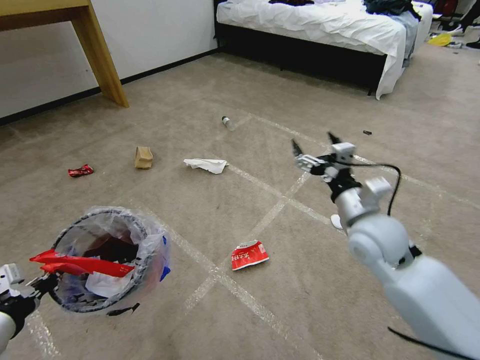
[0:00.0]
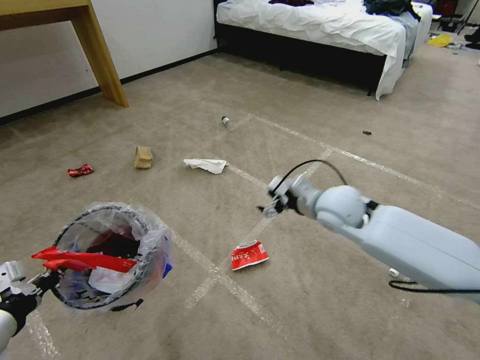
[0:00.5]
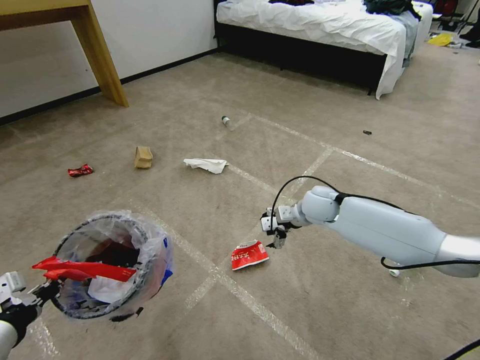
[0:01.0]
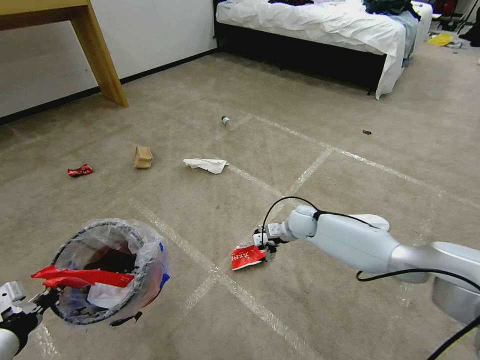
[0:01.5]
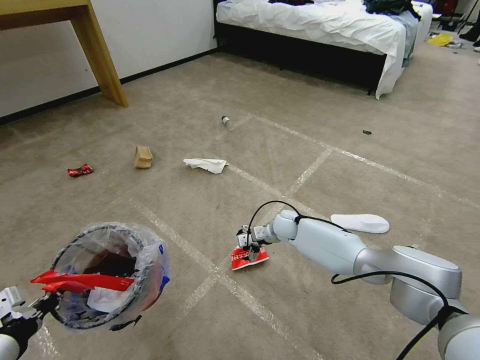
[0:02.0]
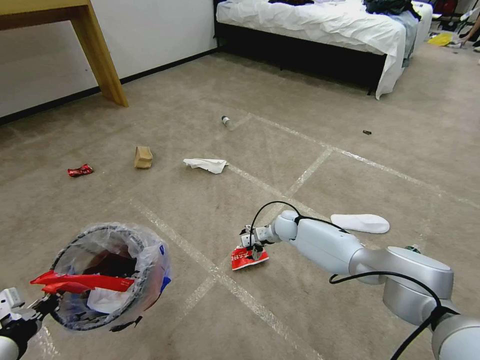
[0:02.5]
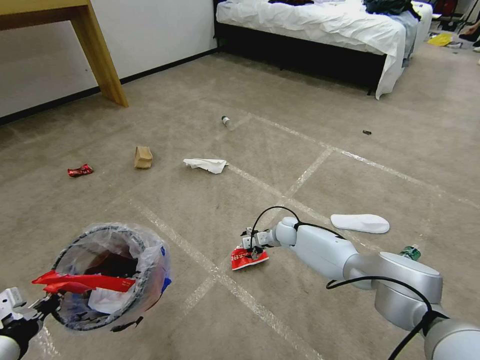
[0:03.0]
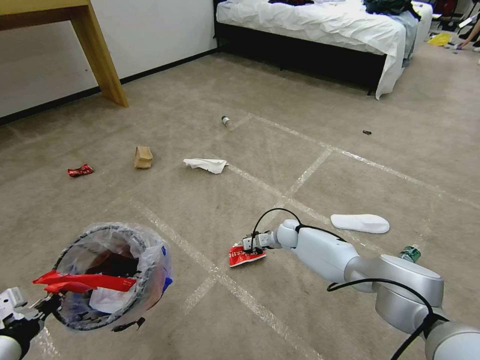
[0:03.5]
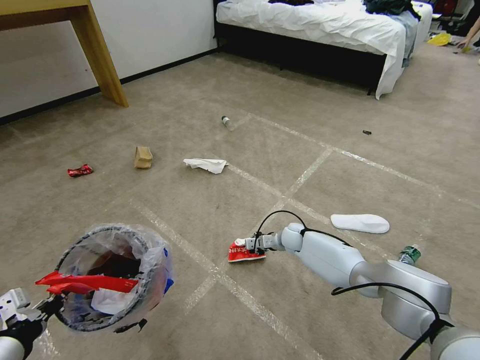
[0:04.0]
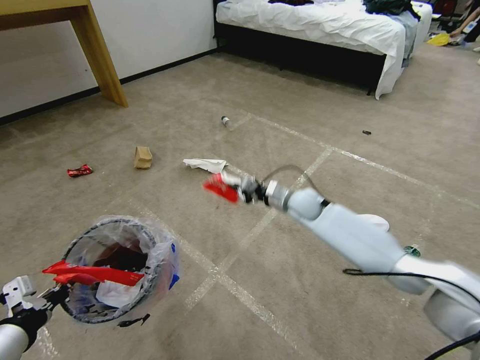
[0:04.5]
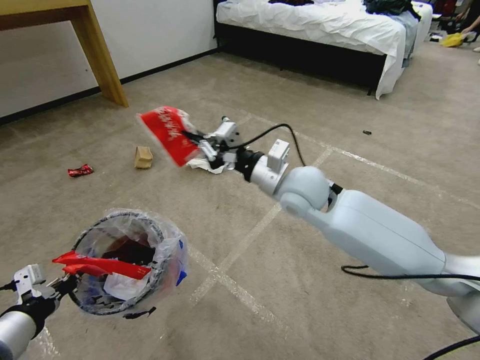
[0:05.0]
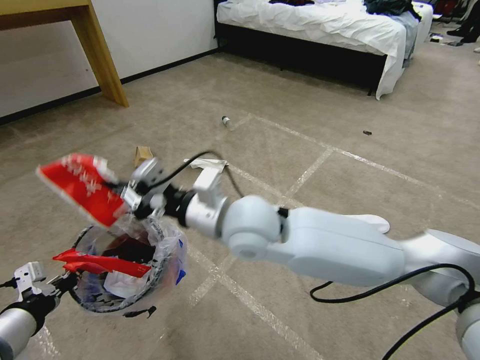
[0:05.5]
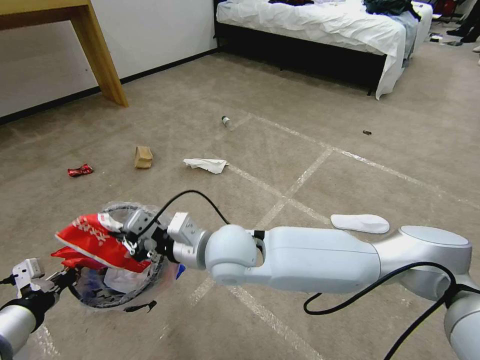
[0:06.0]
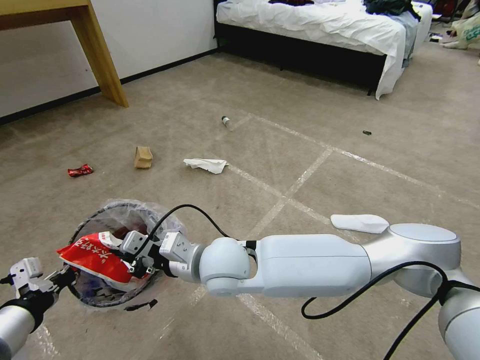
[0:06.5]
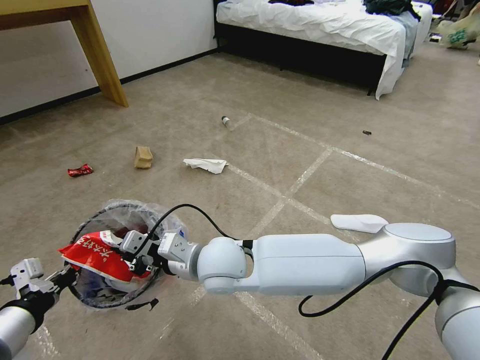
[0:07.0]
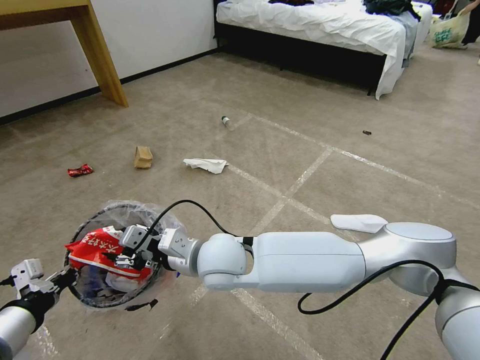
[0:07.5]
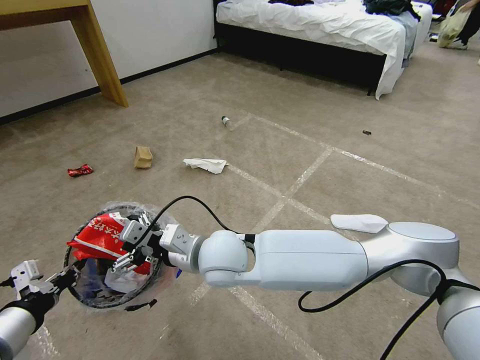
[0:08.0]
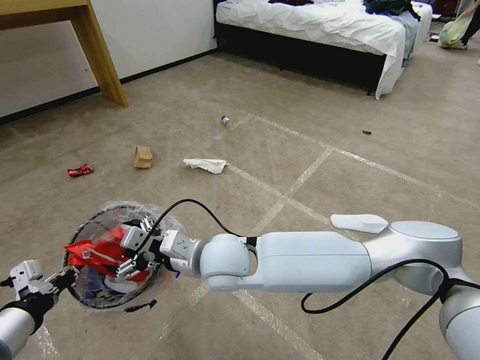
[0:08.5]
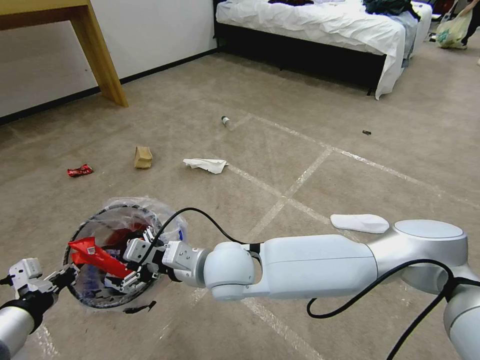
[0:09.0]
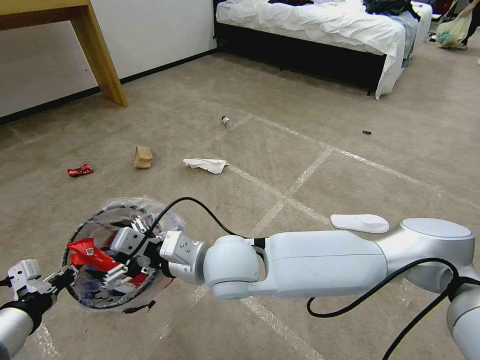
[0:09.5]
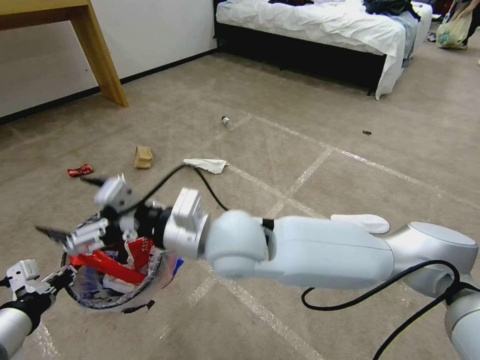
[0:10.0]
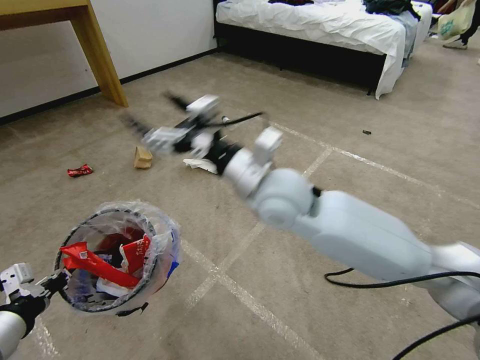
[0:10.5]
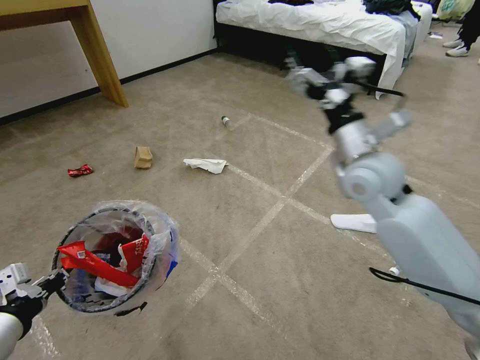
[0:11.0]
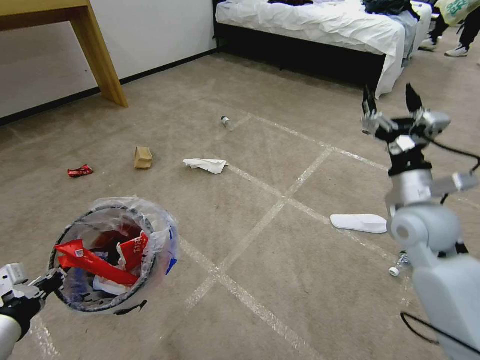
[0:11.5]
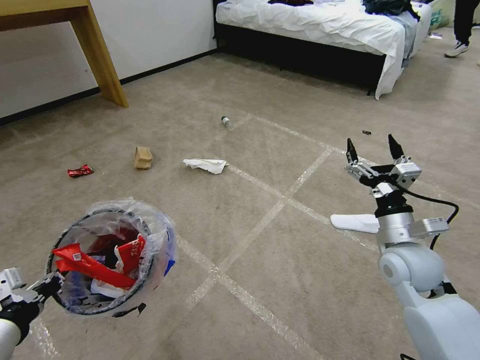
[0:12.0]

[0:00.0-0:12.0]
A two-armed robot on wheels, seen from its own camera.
Task of the whole recording: Pick up the trash bin and place the garbage on the floor into it.
0:00.0 to 0:02.0: The right gripper moves downward, forward and to the left, some 30 cm.
0:02.0 to 0:04.0: The right gripper goes about 5 cm downward, and closes.
0:04.0 to 0:06.0: The right gripper is displaced upward, backward and to the left by about 40 cm.
0:06.0 to 0:08.0: The right gripper opens up.
0:08.0 to 0:10.0: The right gripper shifts about 10 cm upward.
0:10.0 to 0:12.0: The right gripper heads to the right, covering roughly 35 cm.

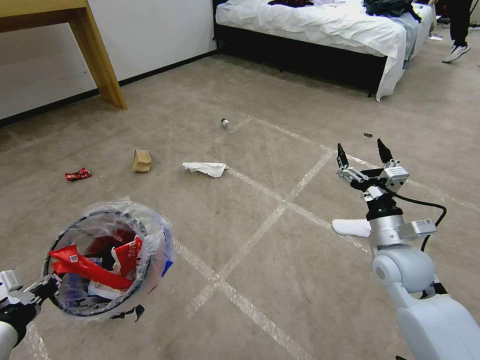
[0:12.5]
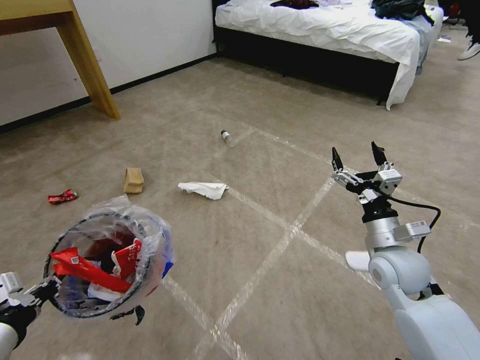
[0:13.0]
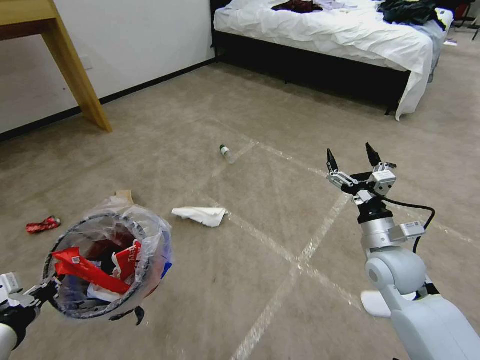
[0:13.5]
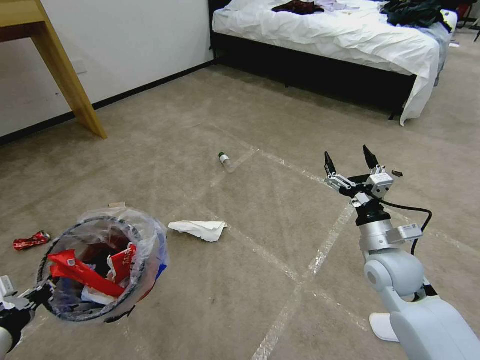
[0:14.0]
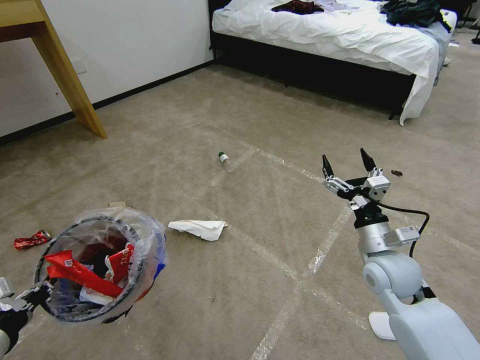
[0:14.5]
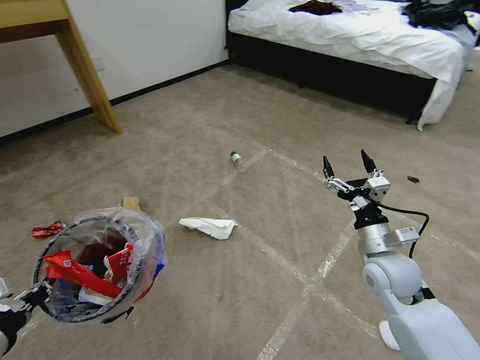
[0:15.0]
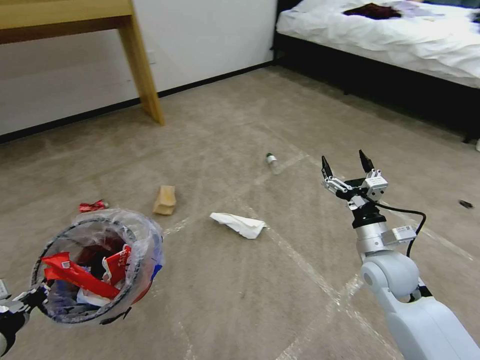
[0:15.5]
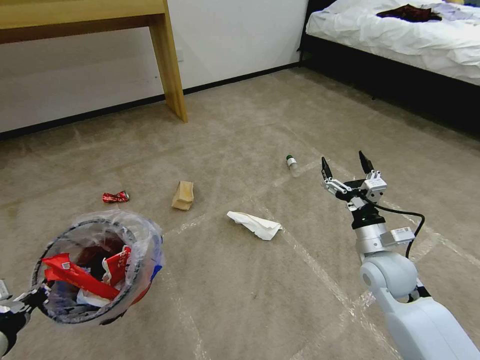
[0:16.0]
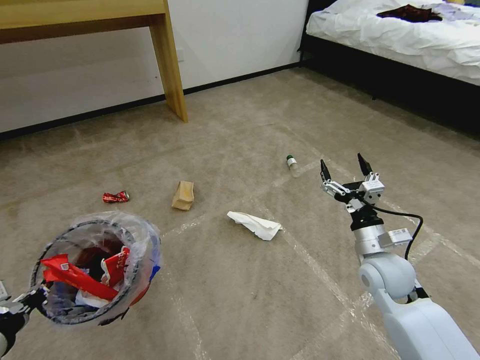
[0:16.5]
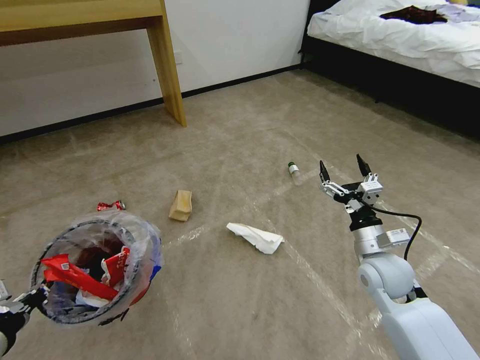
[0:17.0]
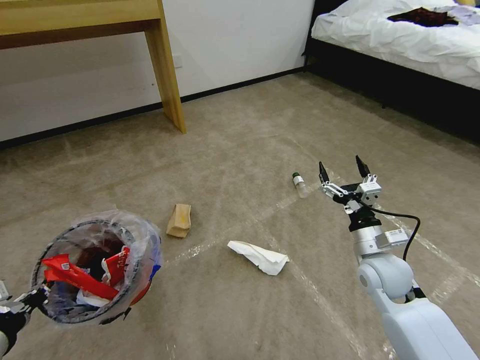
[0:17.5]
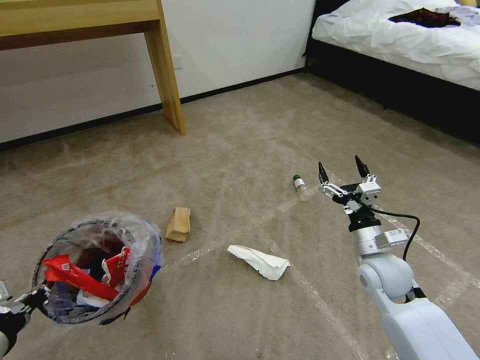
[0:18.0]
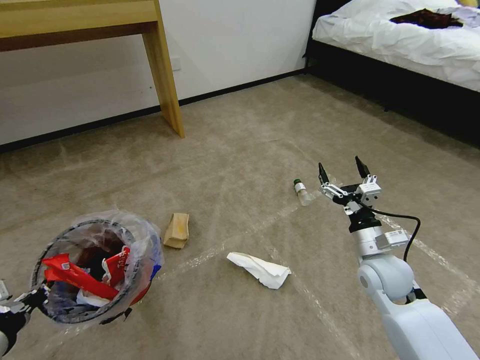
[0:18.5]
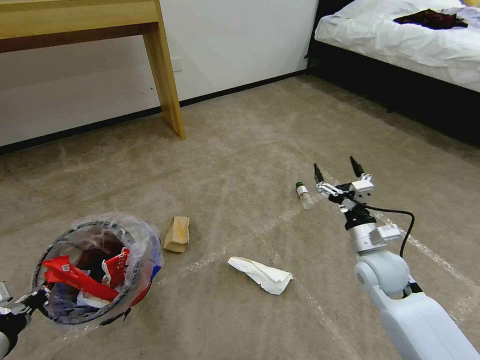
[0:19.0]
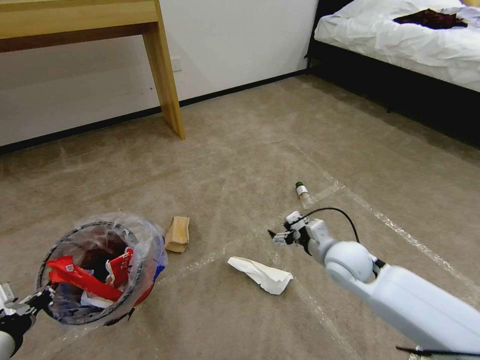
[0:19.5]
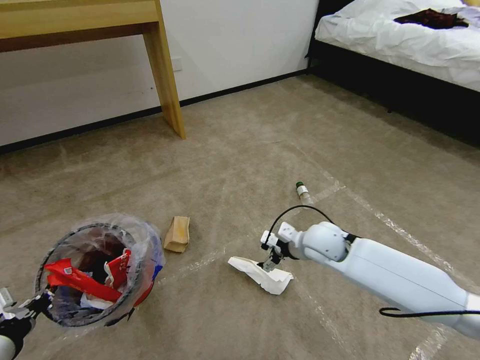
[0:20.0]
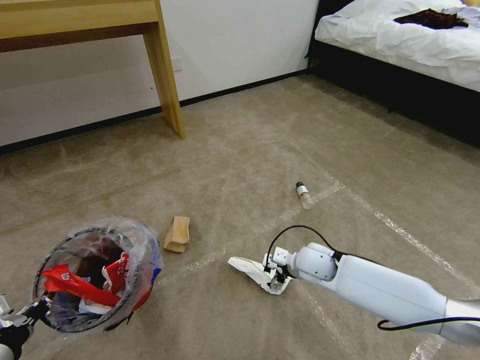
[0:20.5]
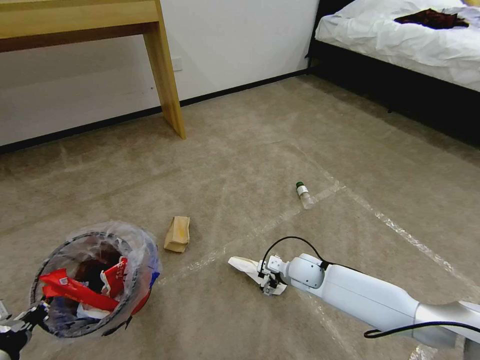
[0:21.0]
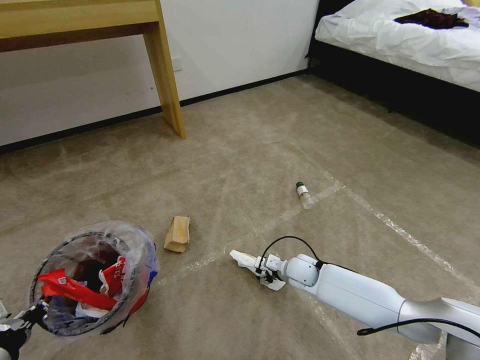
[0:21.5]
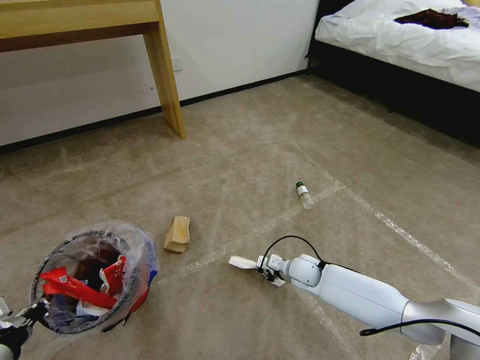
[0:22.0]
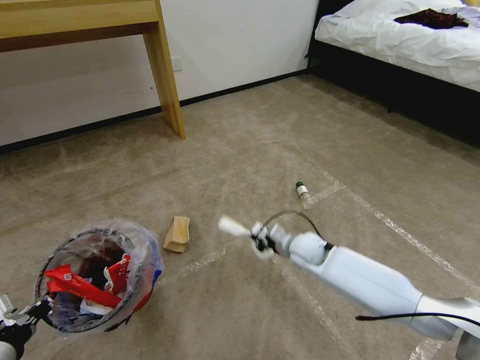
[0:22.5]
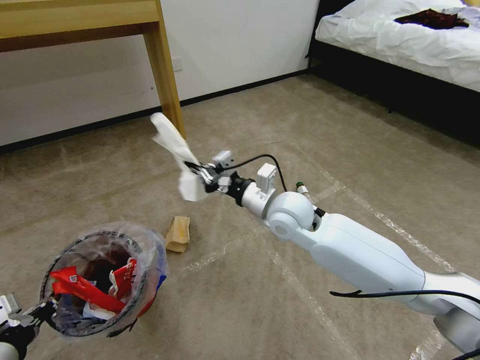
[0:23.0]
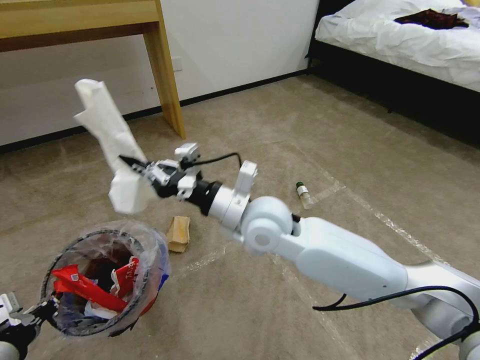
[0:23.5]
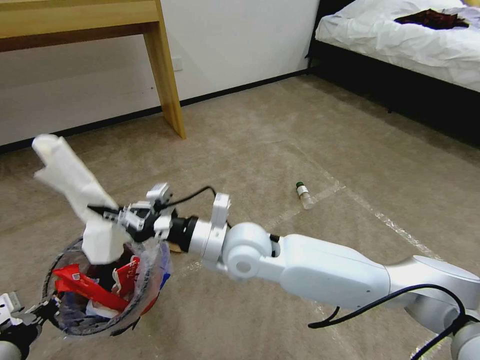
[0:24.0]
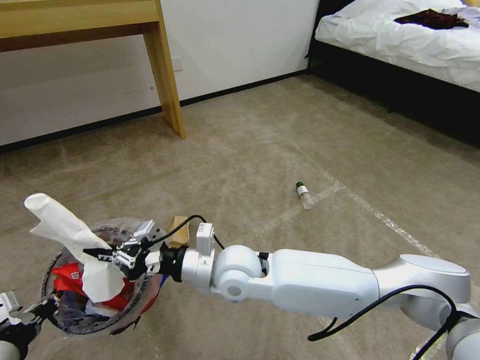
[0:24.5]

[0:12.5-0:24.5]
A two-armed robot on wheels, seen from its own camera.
Task of the whole recording: Pick up the trash bin and place the garbage on the floor into it.
0:18.5 to 0:20.5: The right gripper moves to the left, forward and downward, about 15 cm.
0:20.5 to 0:22.5: The right gripper moves about 10 cm downward and comes back, and closes its fingers.
0:22.5 to 0:24.5: The right gripper is displaced to the left, backward and upward by roughly 25 cm.

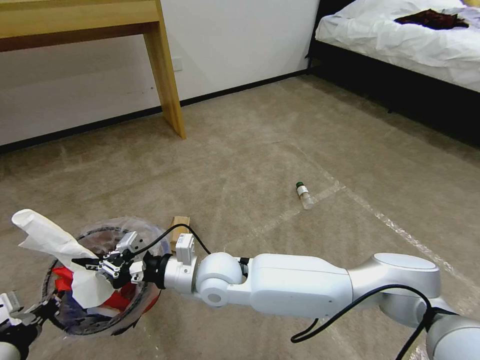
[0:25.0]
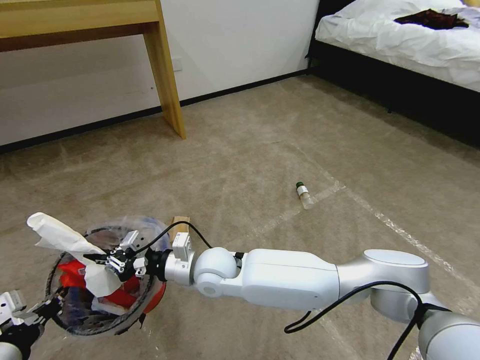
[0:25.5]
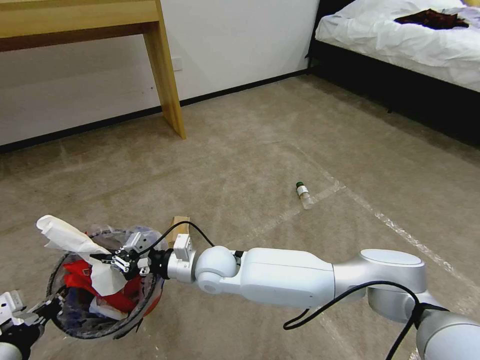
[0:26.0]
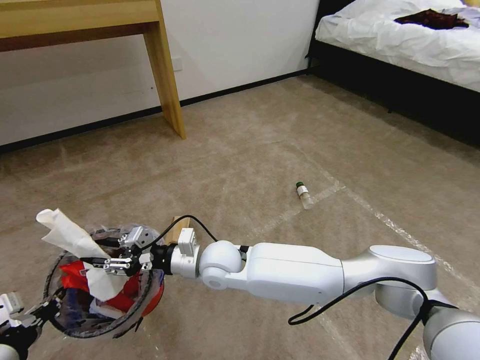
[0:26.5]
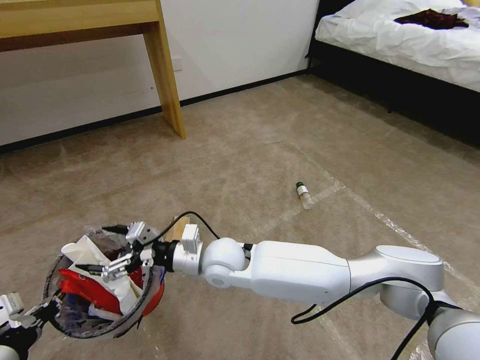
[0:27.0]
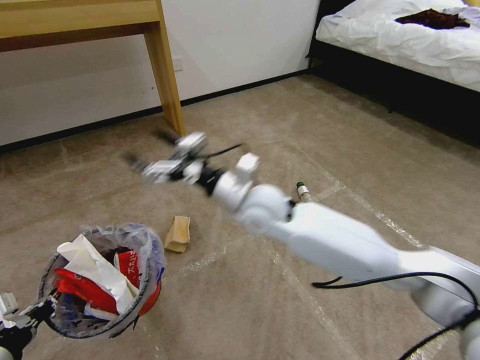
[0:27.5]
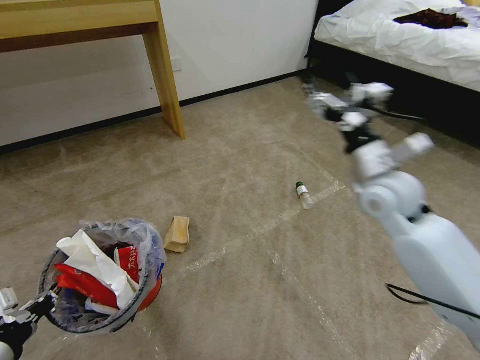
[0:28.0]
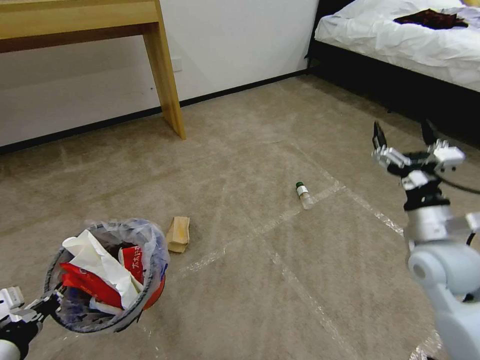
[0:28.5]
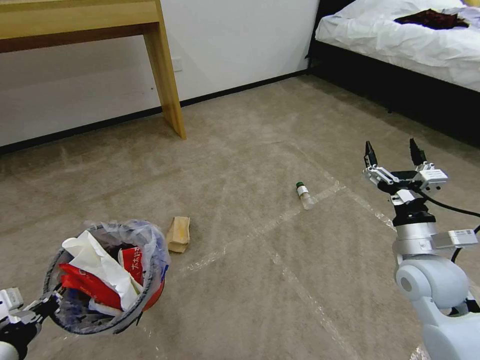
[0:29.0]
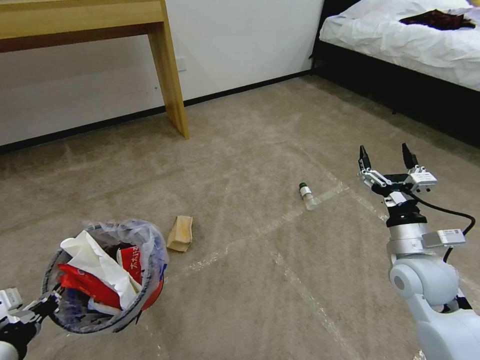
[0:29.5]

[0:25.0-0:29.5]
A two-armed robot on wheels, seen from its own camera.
Task of the whole recording: Pick up the trash bin and place the garbage on the floor into it.
0:25.0 to 0:27.0: The right gripper opens.
0:27.0 to 0:29.5: The right gripper heads to the right, covering roughly 40 cm.
